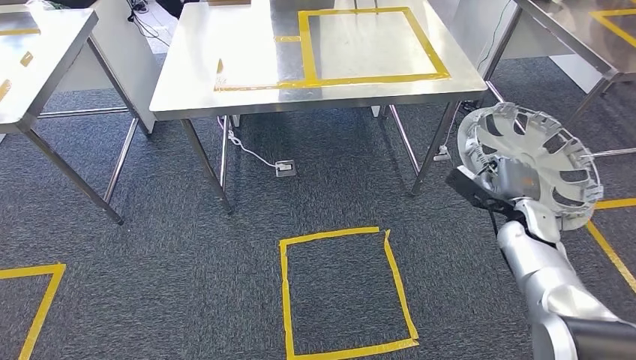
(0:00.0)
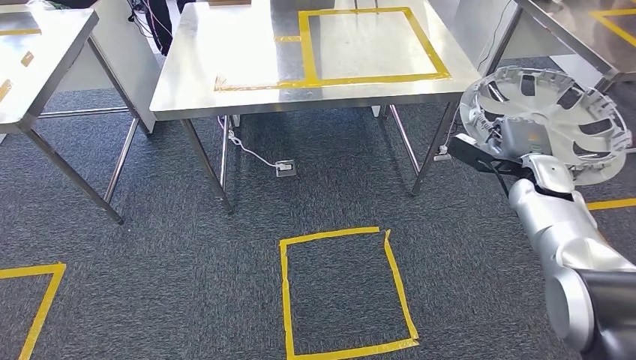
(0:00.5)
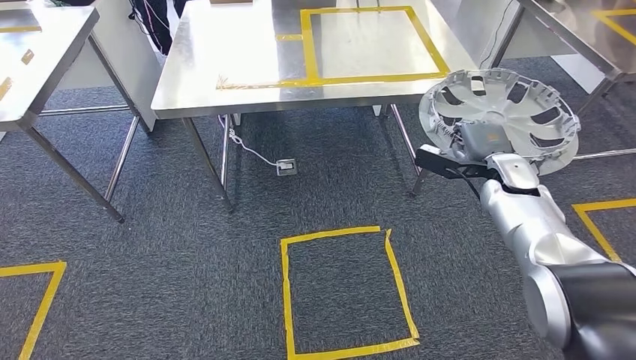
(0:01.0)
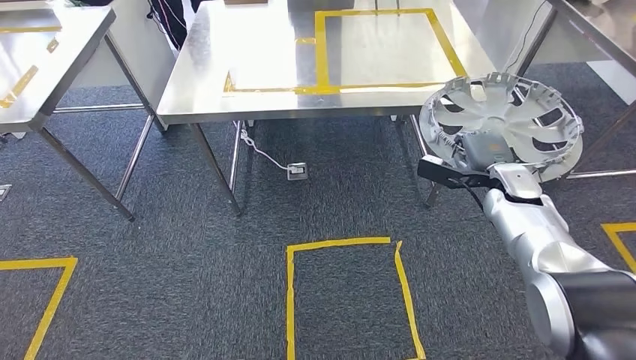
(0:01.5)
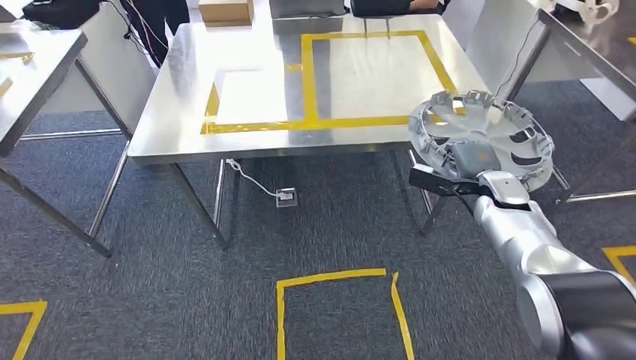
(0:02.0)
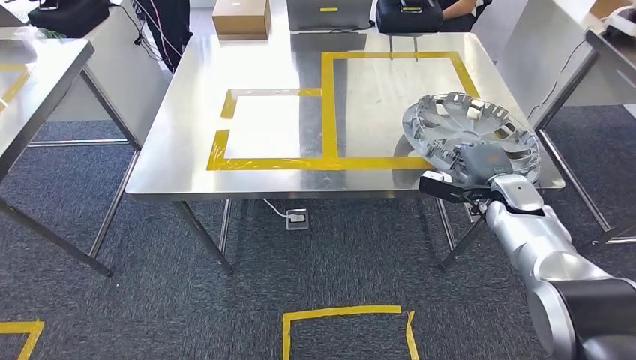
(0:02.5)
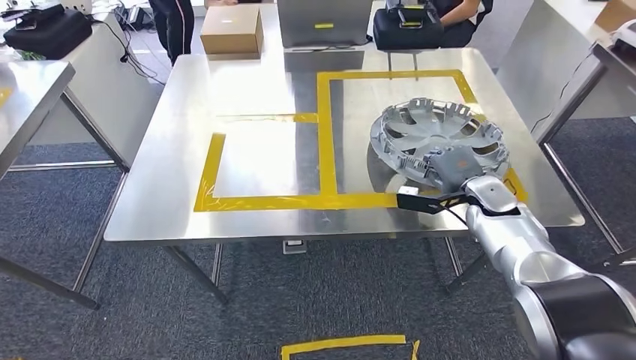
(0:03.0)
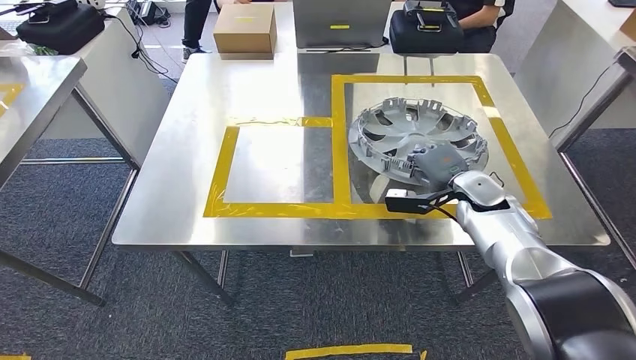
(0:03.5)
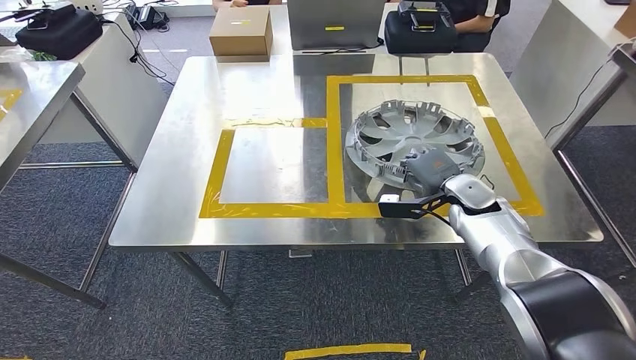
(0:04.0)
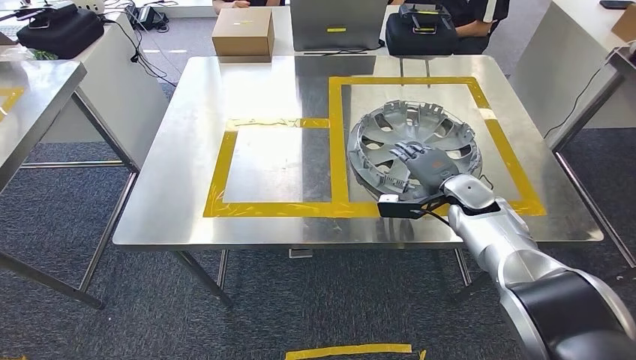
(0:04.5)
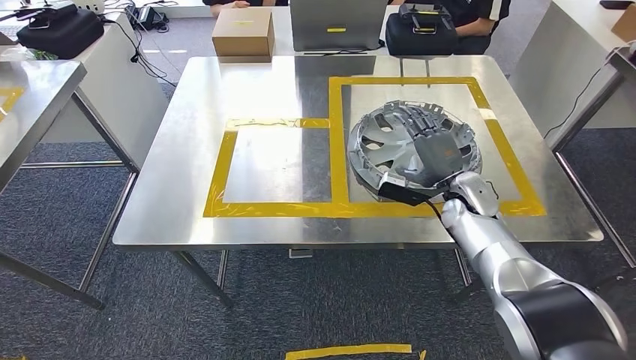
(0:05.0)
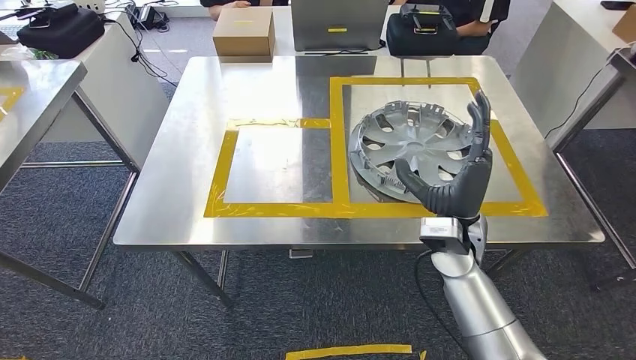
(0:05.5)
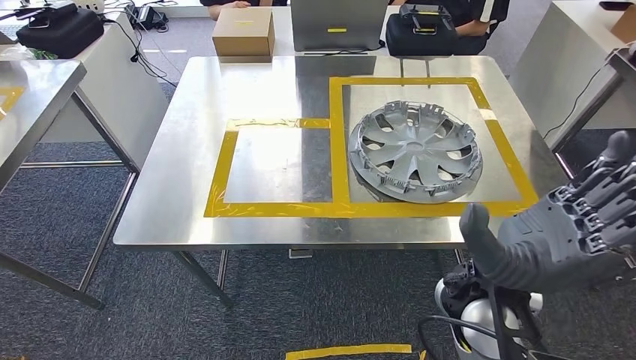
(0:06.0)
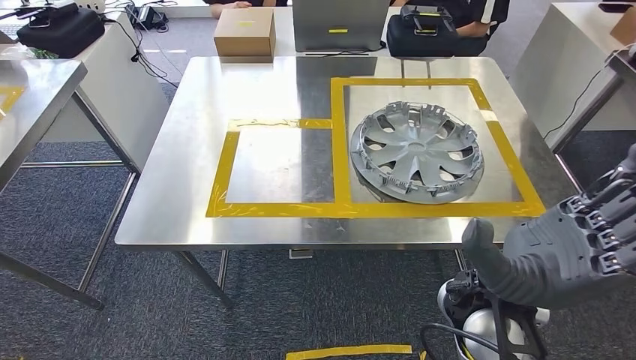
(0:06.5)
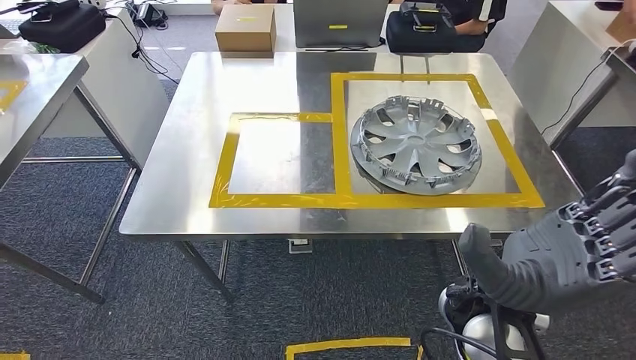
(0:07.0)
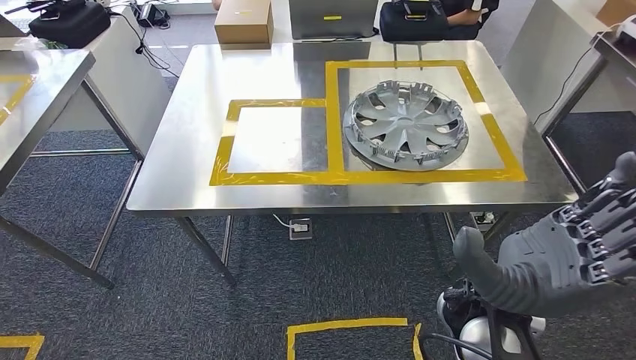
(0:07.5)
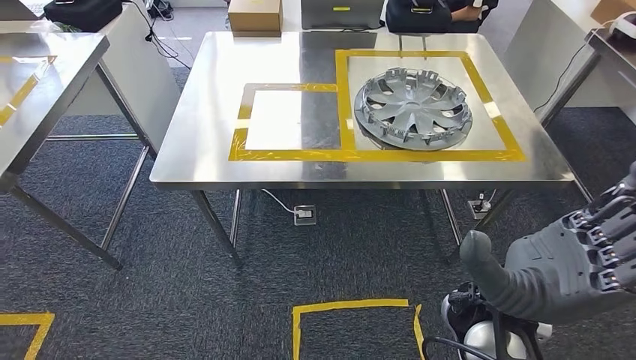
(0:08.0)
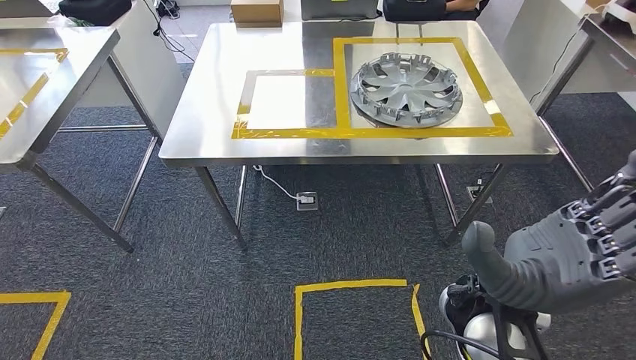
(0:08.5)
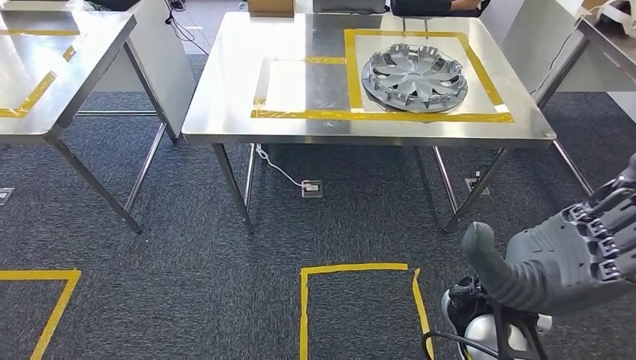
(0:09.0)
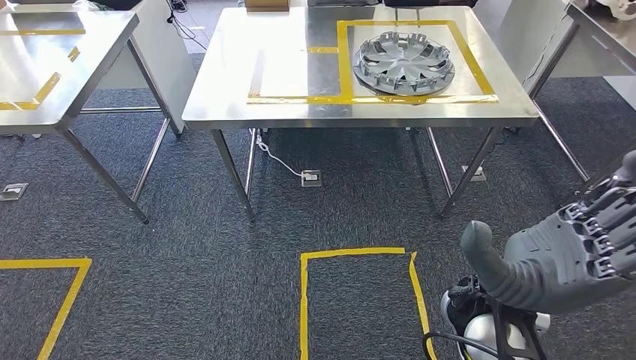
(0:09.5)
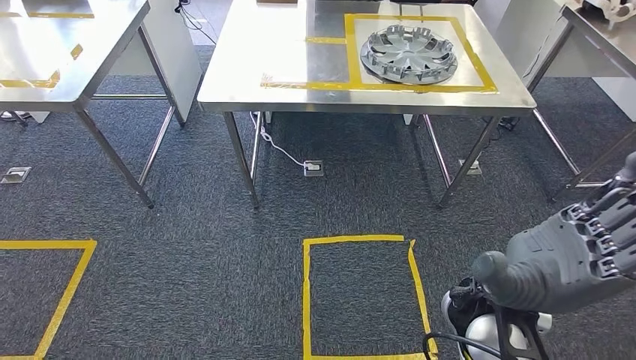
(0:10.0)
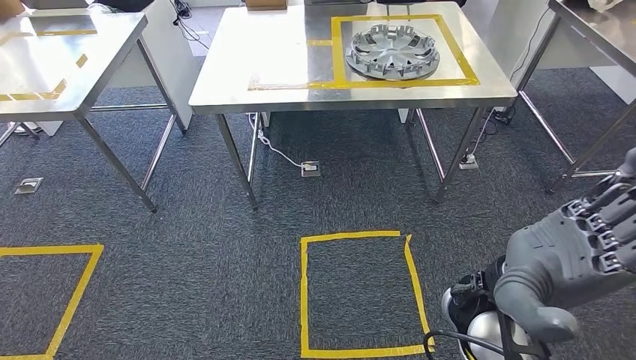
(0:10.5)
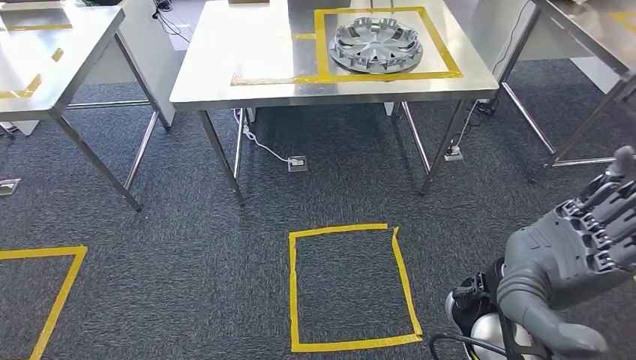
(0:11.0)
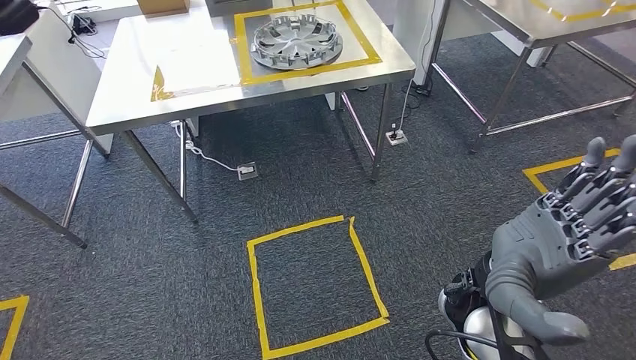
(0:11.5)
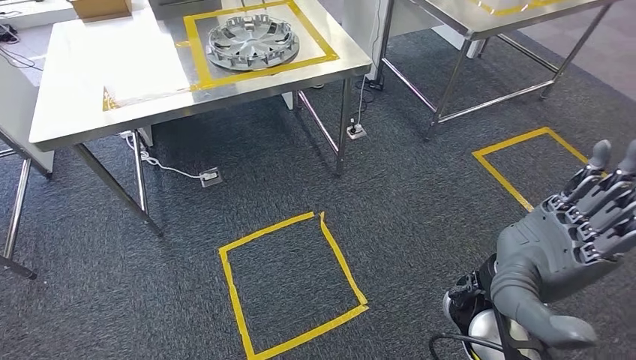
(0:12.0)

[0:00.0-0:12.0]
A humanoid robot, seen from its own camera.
Step, 0:00.0 to 0:03.0: Move the small component to the workbench.
Step, 0:03.5 to 0:05.5: Insert the small component into the corresponding slot on the workbench.

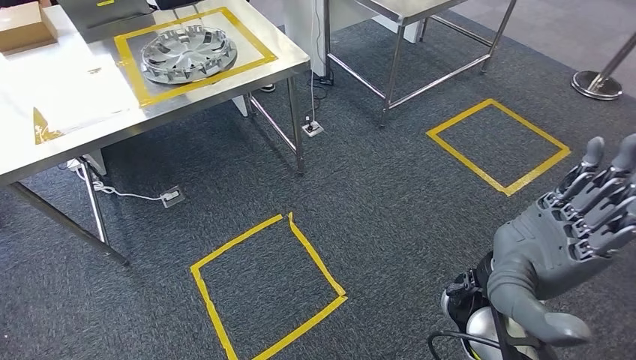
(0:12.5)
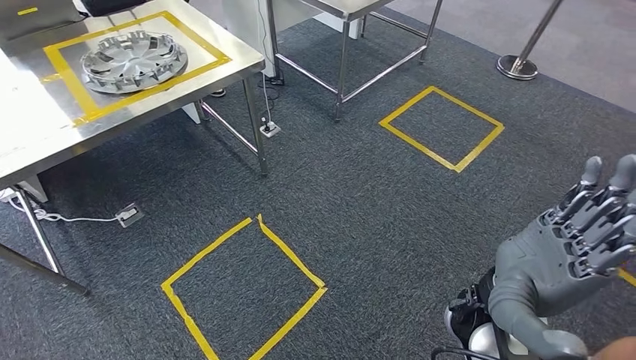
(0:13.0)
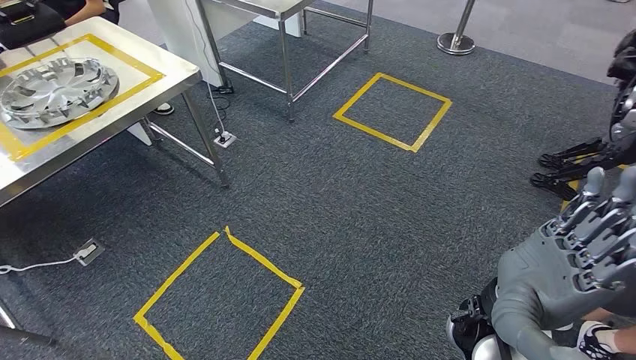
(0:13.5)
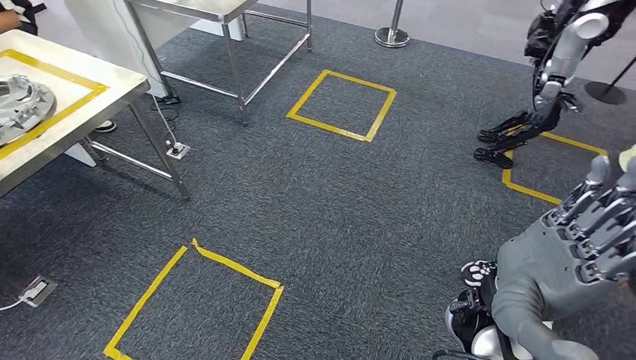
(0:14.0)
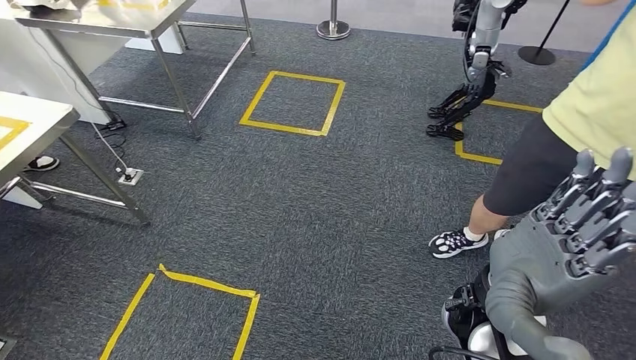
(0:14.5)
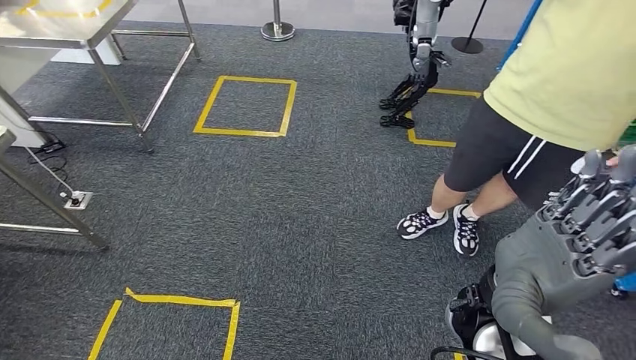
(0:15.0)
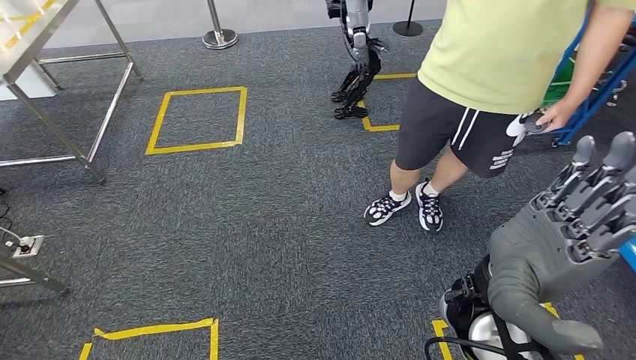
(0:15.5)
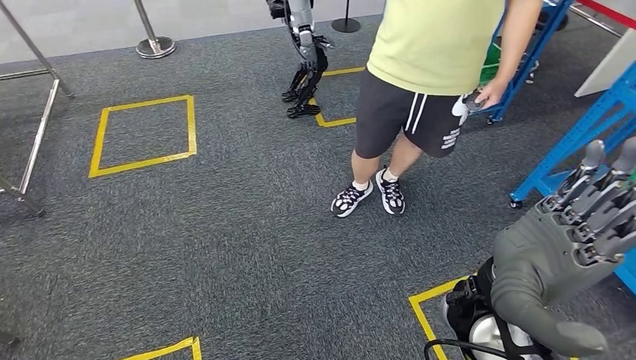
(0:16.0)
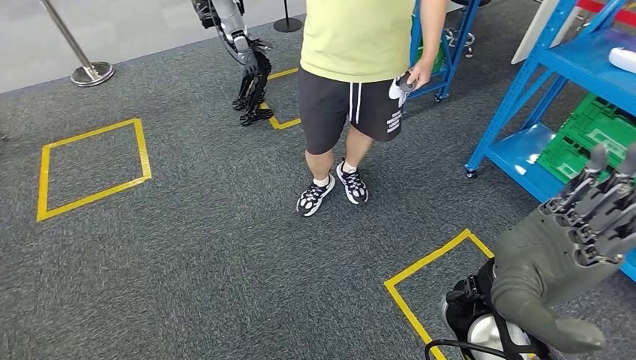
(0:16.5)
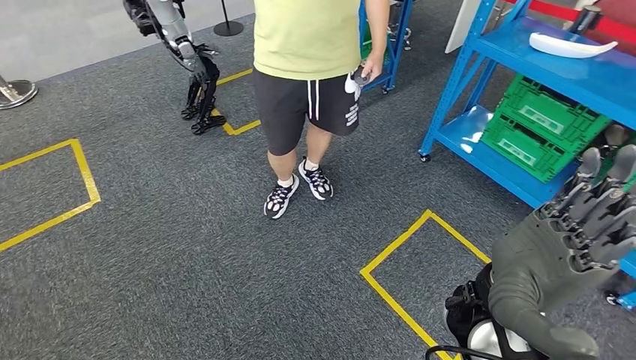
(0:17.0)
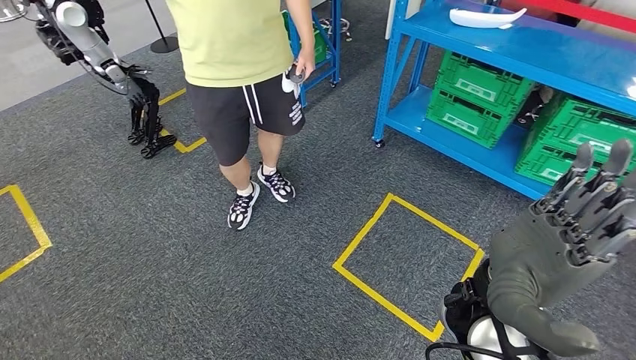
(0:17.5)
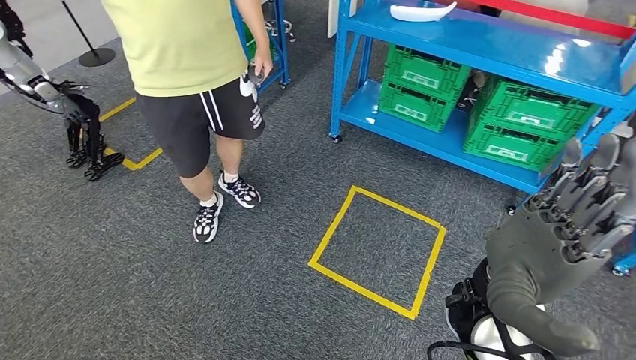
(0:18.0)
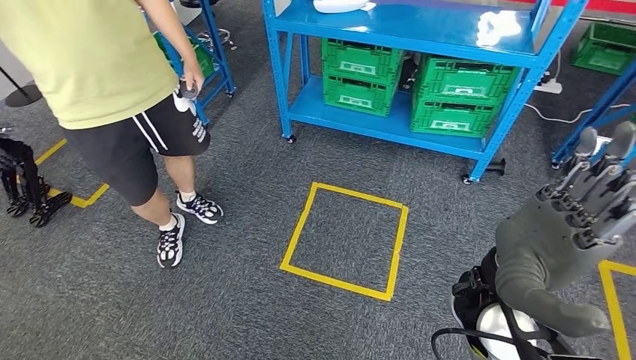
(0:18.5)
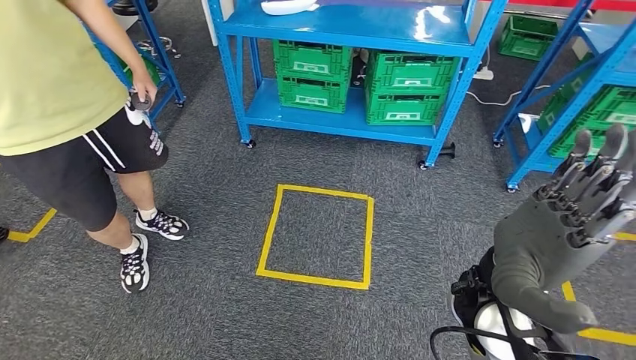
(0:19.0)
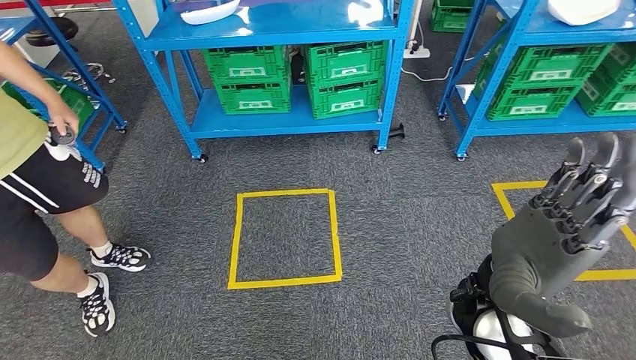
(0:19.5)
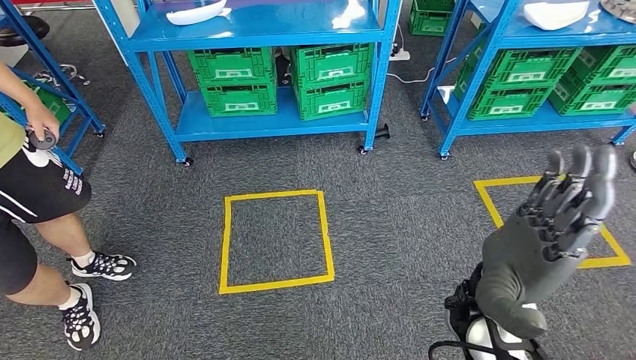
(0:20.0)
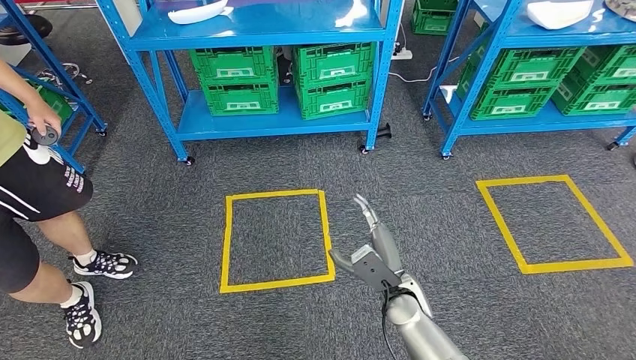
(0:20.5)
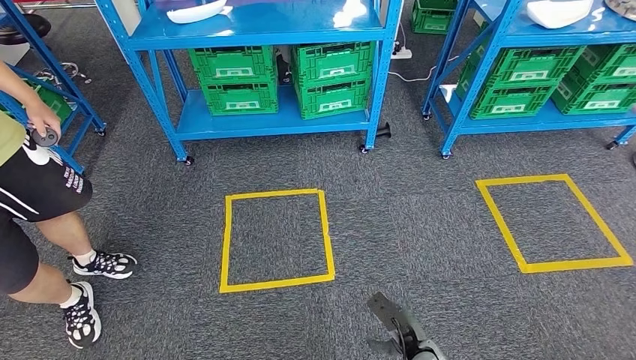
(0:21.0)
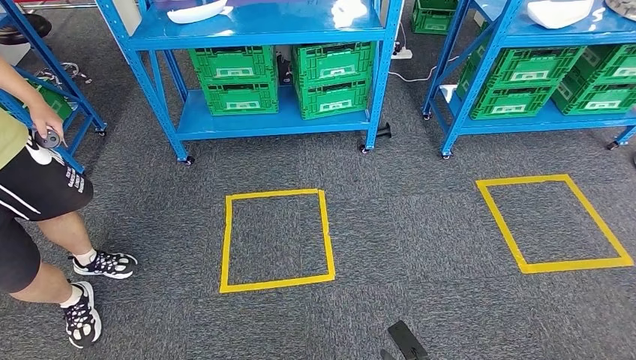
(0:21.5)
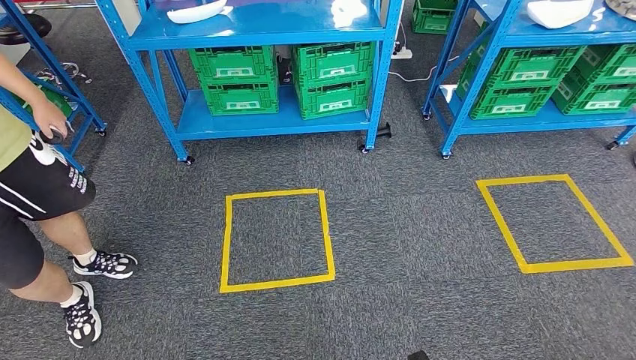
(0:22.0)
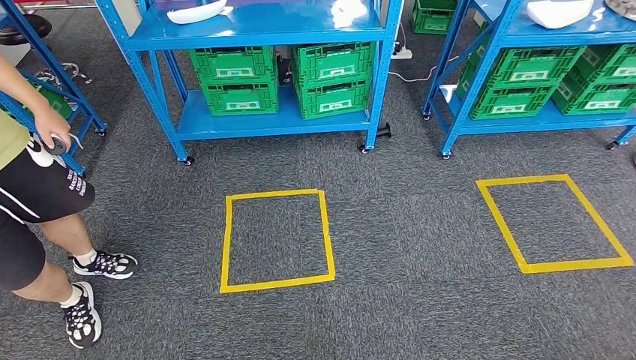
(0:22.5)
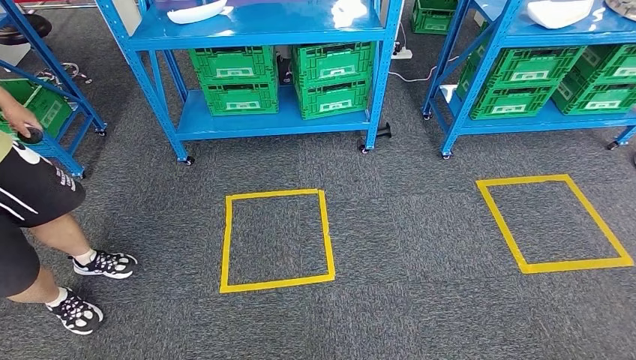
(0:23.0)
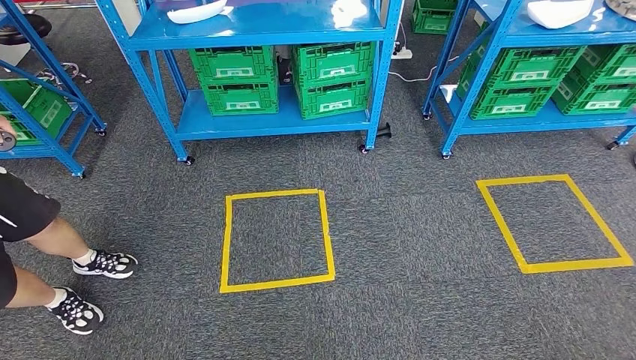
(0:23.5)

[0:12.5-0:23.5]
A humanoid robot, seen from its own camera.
Step, 0:12.5 to 0:23.5: Return to the initial position at the workbench.
0:20.0 to 0:21.5: The right hand travels downward by some 35 cm.
0:21.5 to 0:23.5: The left hand ends up about 5 cm from where it was.
